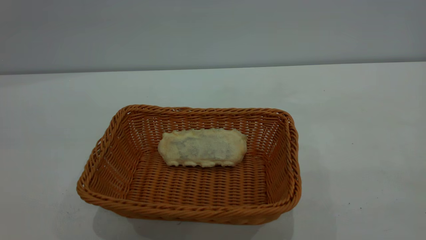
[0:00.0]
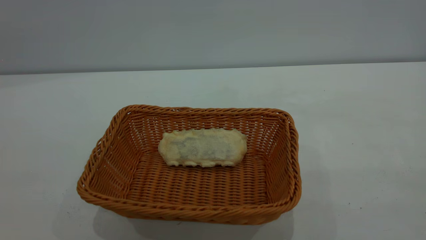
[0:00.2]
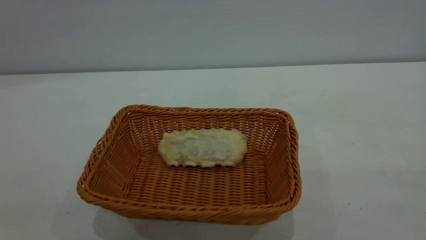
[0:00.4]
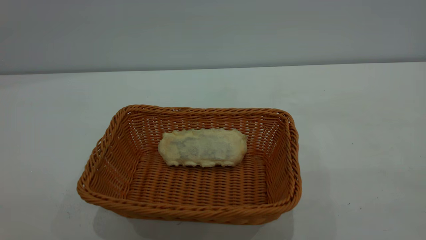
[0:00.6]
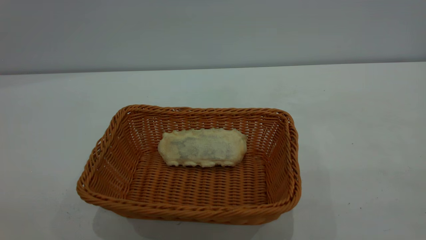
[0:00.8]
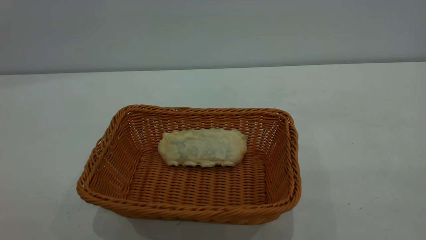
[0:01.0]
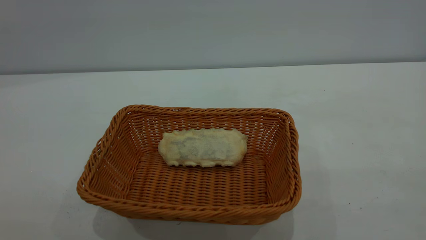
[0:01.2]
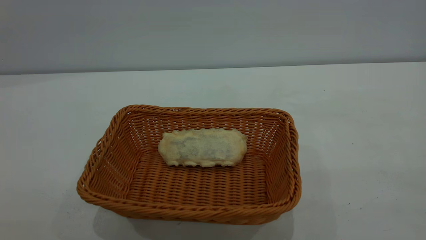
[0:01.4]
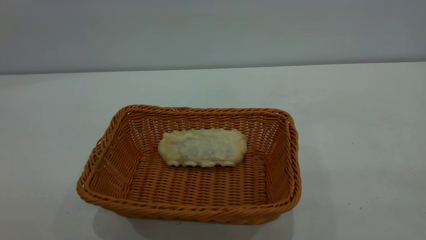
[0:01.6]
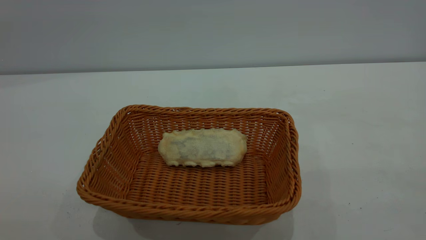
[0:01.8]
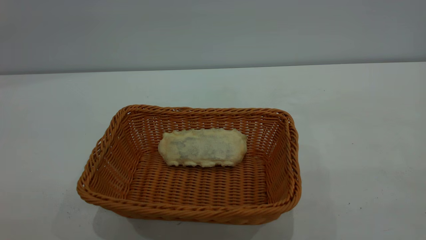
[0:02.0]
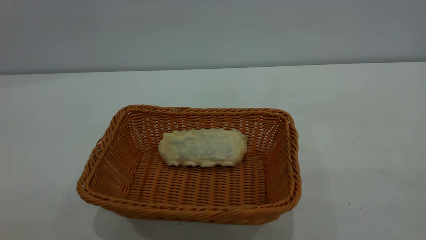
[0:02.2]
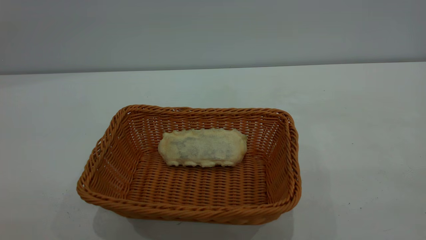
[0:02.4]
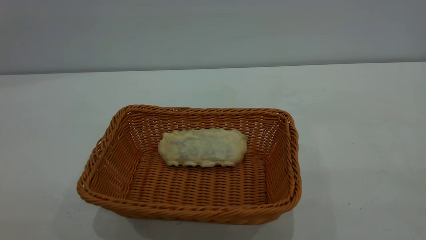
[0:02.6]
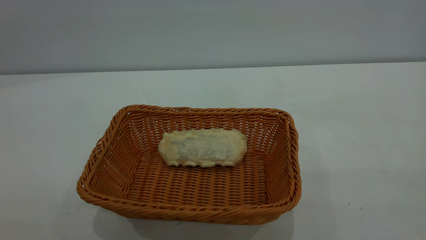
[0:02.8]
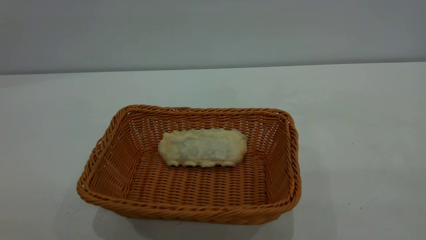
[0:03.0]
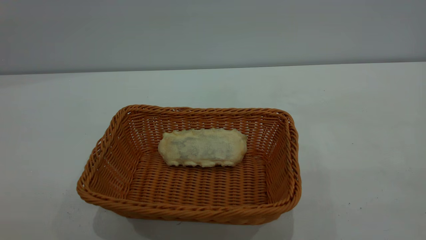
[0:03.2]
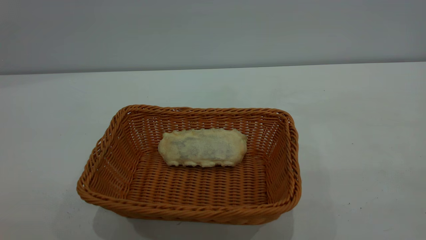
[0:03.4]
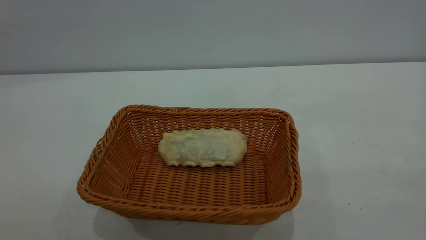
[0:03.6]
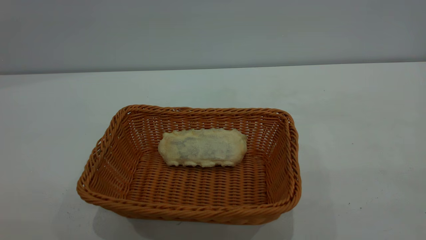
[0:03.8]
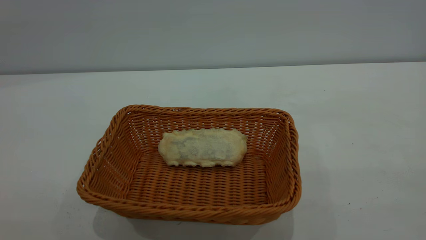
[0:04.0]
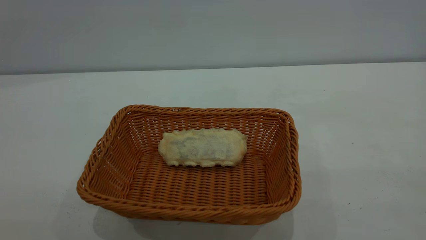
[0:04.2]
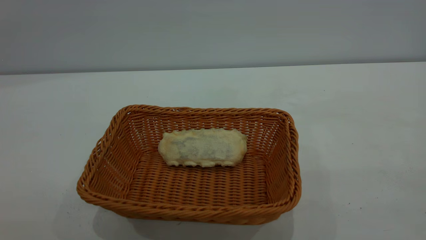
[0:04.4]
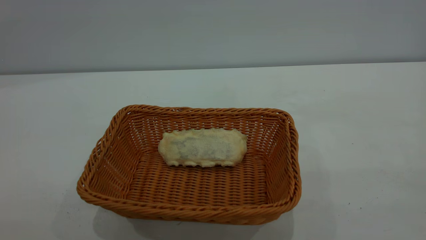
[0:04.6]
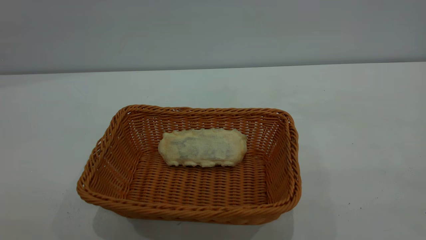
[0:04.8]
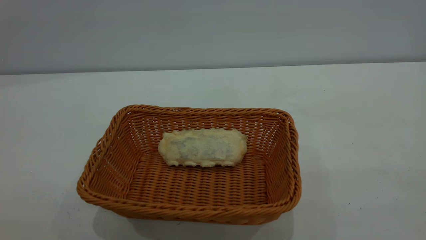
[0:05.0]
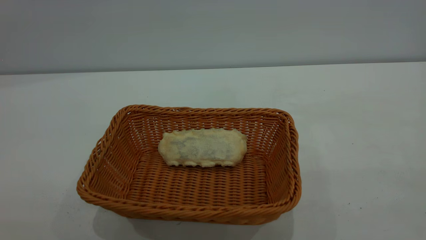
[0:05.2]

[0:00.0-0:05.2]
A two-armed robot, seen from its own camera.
Task of the whole recording: One hand grasps the yellow basket and places it in the middle of the table, while the other hand picks up the long bread and puts it into the yellow basket.
0:01.8 to 0:05.2: Neither gripper changes place.
